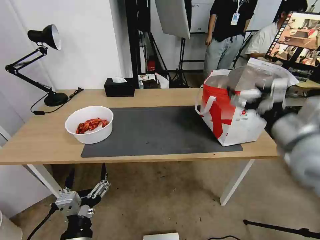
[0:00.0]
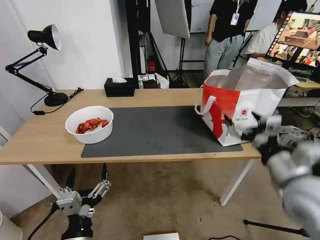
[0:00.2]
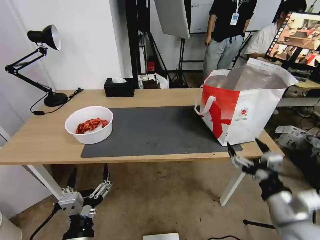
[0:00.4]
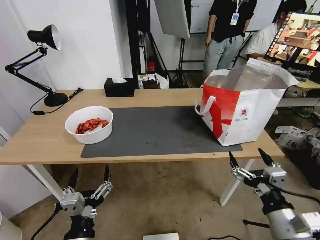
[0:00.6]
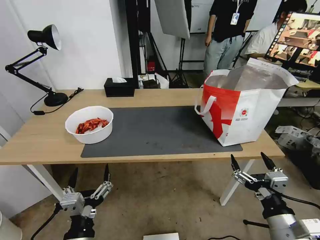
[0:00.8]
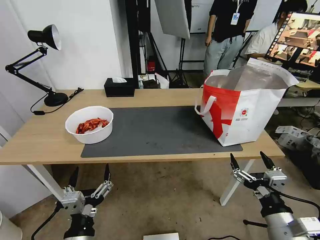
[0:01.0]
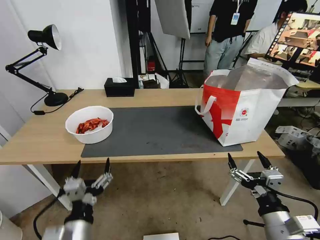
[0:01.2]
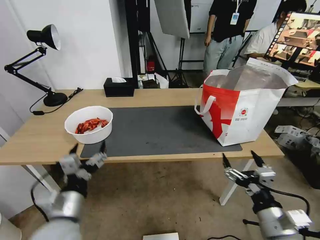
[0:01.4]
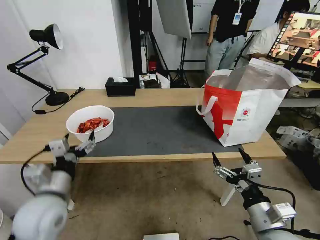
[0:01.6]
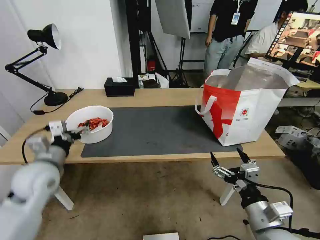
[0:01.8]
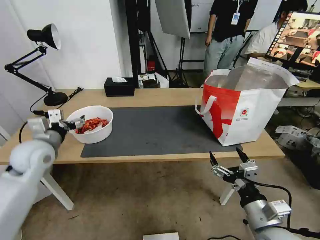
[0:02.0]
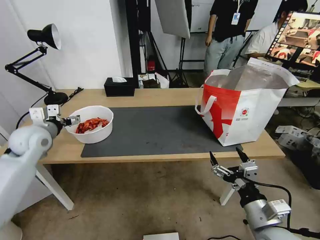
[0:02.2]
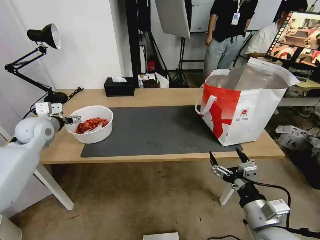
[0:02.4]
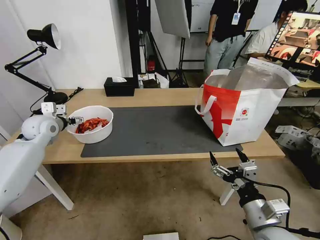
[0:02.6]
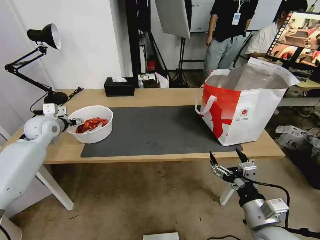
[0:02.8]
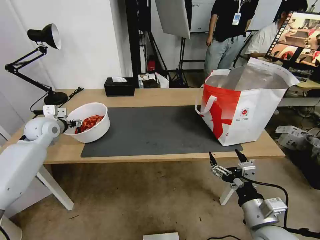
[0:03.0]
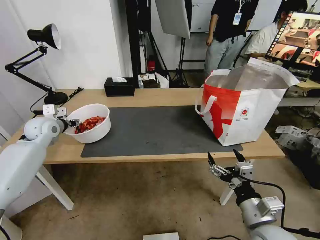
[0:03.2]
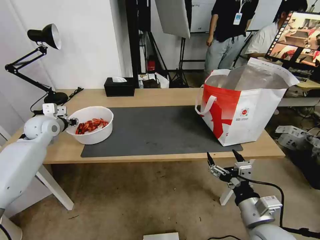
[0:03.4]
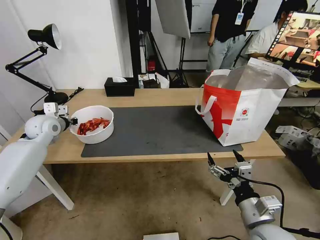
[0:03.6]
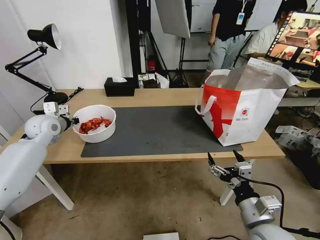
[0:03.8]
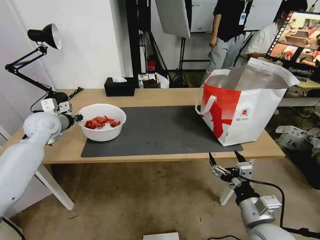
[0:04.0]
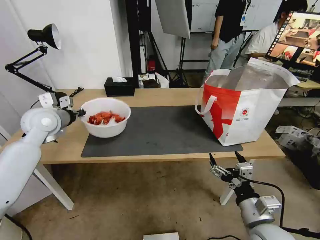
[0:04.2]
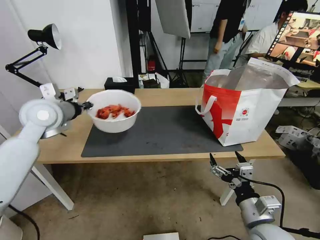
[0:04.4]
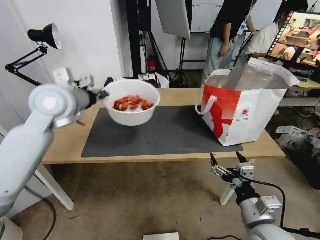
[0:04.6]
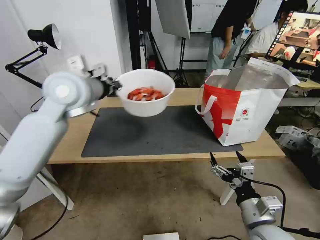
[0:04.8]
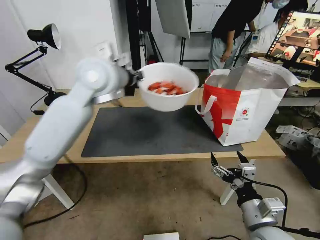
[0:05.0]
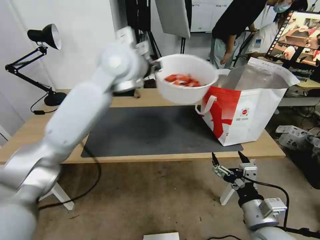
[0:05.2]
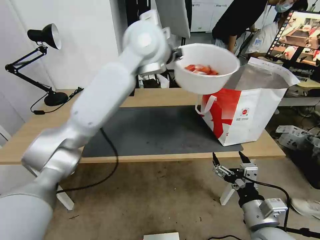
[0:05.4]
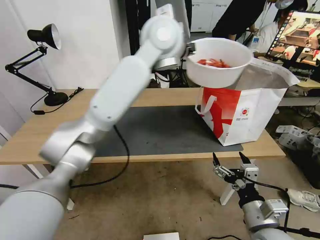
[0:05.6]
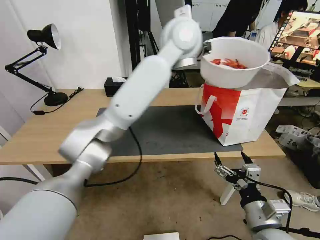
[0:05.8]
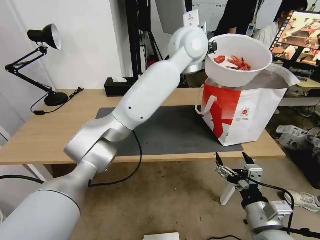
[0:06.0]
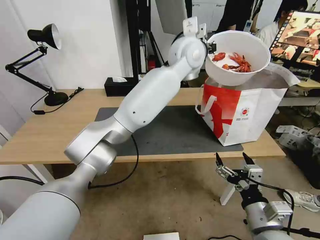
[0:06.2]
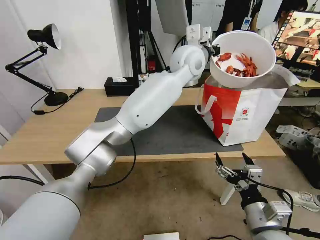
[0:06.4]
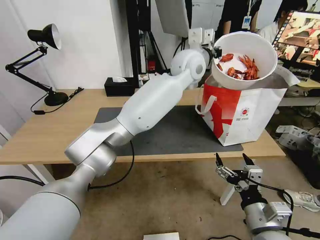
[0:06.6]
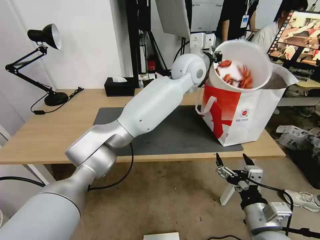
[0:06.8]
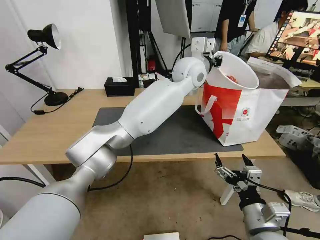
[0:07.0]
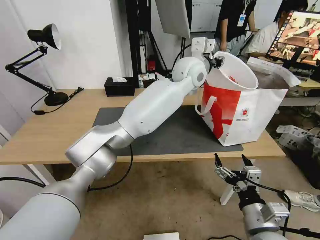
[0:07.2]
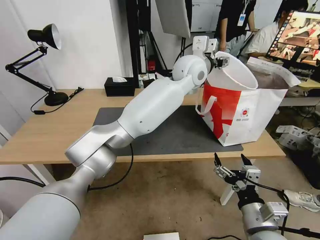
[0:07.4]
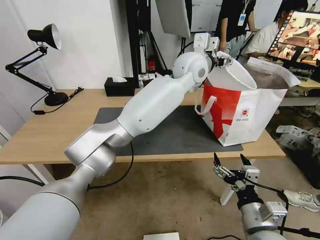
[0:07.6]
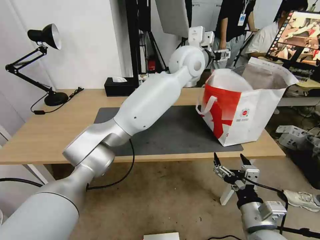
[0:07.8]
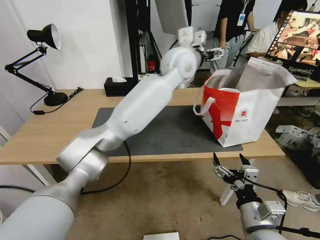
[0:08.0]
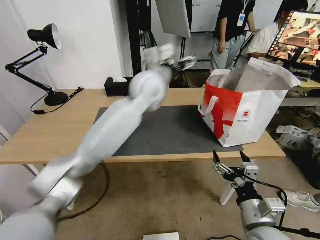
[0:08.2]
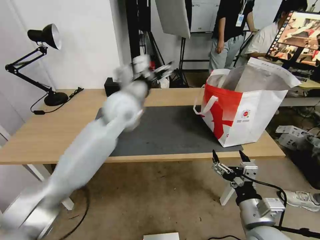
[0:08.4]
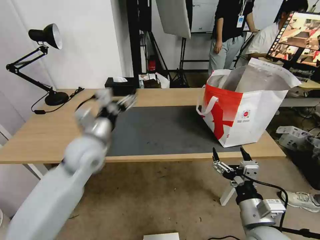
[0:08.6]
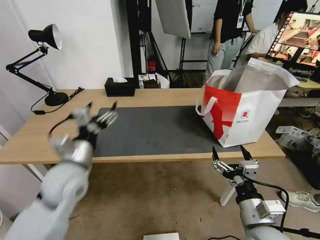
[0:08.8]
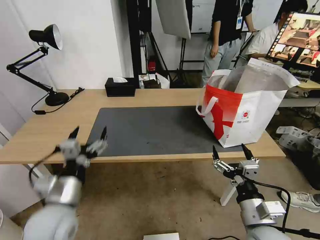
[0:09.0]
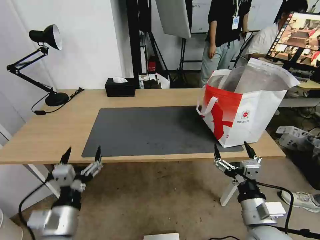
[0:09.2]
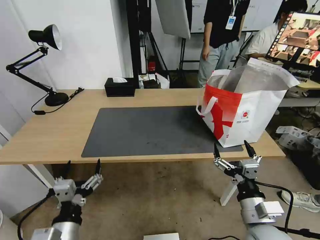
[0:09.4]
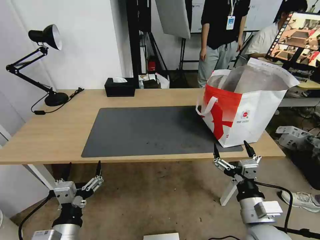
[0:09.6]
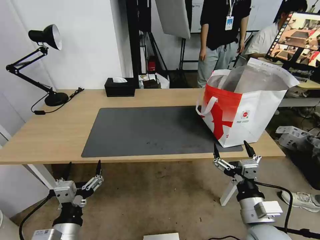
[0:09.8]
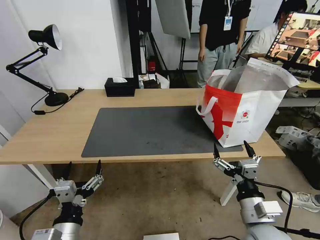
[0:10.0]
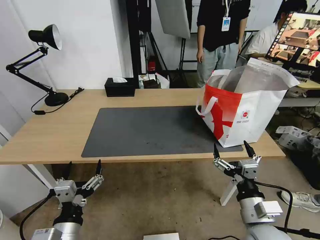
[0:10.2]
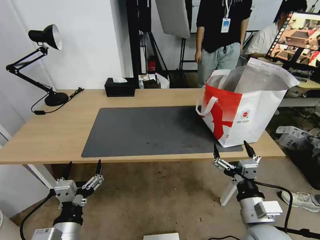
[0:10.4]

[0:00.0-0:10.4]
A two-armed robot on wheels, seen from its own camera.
Task of the whole recording: Pick up the trash from the table and place it into the takeout bag.
0:00.0 to 0:01.4: The left gripper travels forward by some 10 cm. Meanwhile the right gripper heads downward and backward, covering approximately 20 cm.
0:01.4 to 0:03.0: The left gripper is displaced forward and to the left by about 35 cm.
0:03.0 to 0:04.4: The left gripper heads upward, to the right and backward, covering roughly 15 cm, and closes its fingers.
0:04.4 to 0:06.0: The left gripper is displaced to the right by roughly 40 cm.
0:06.0 to 0:07.4: The left gripper goes roughly 5 cm downward, and opens.
0:07.4 to 0:09.0: The left gripper heads backward, to the left and downward, covering approximately 50 cm.
0:09.0 to 0:10.4: The left gripper moves backward, some 10 cm.

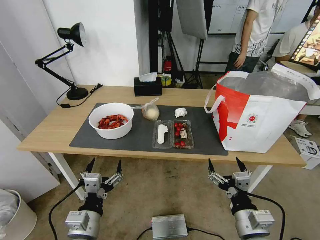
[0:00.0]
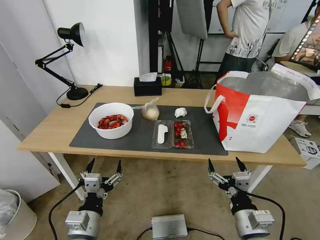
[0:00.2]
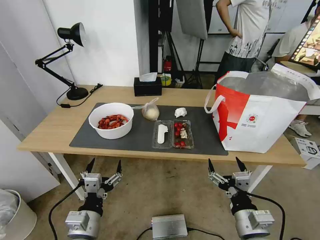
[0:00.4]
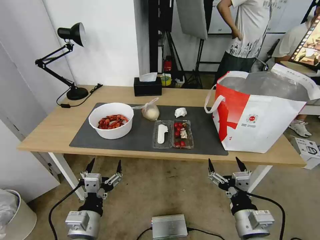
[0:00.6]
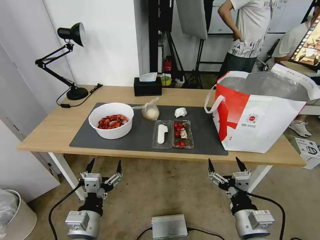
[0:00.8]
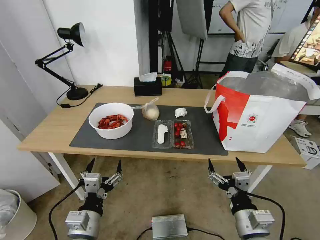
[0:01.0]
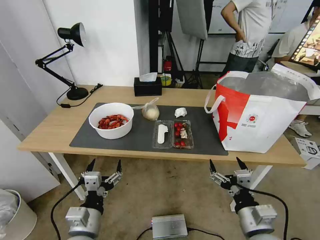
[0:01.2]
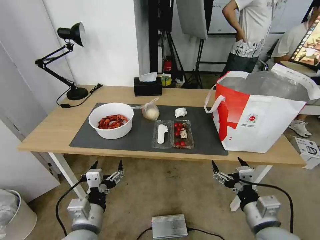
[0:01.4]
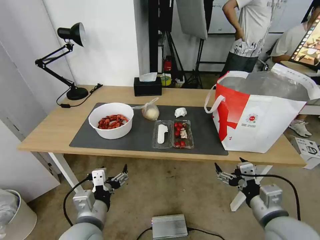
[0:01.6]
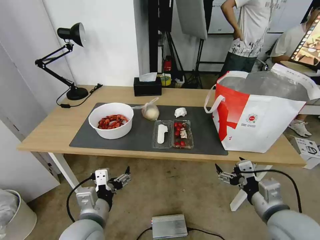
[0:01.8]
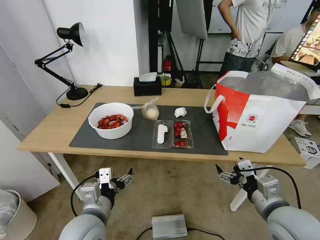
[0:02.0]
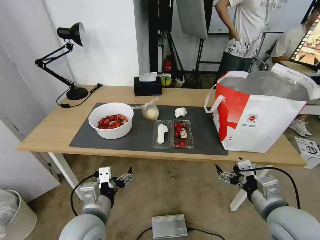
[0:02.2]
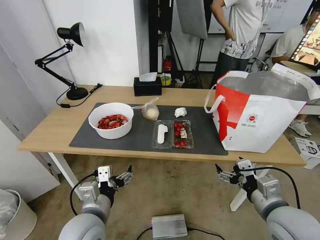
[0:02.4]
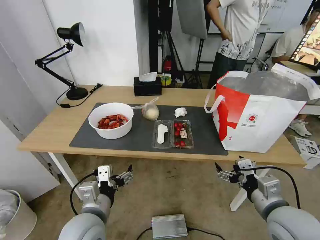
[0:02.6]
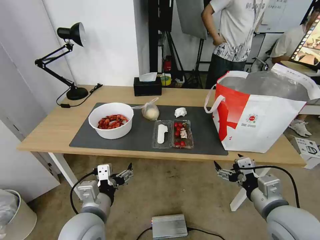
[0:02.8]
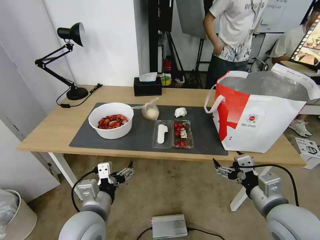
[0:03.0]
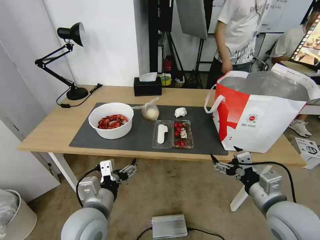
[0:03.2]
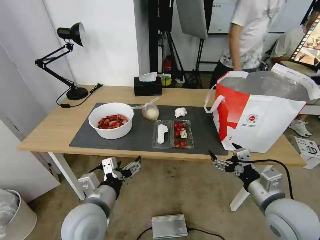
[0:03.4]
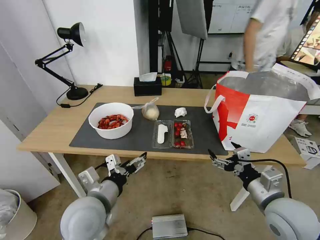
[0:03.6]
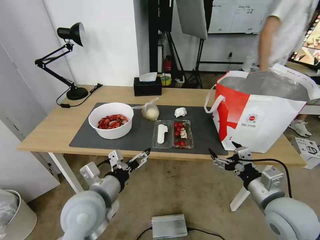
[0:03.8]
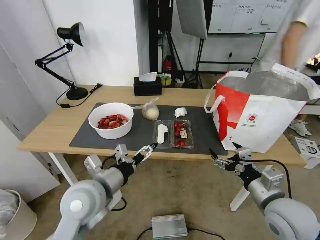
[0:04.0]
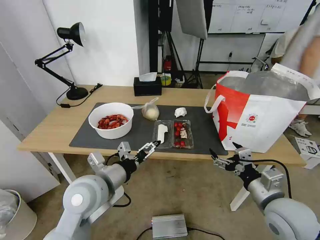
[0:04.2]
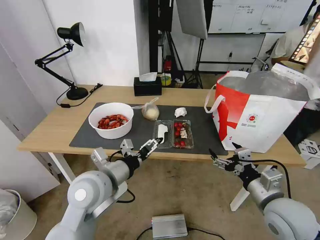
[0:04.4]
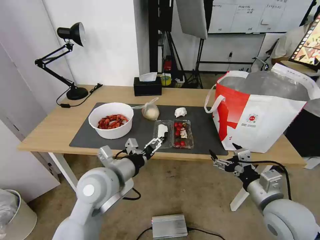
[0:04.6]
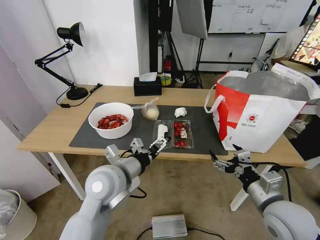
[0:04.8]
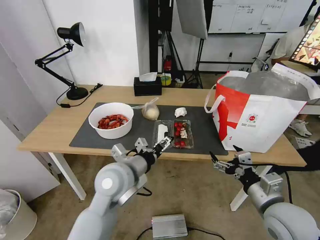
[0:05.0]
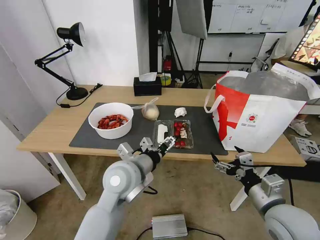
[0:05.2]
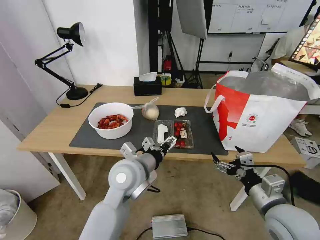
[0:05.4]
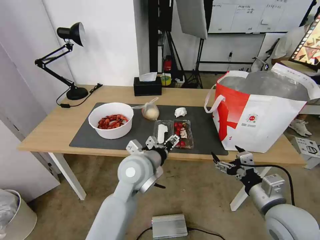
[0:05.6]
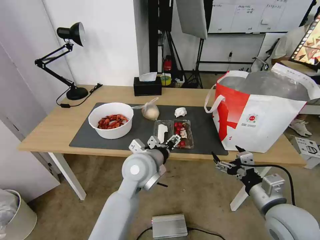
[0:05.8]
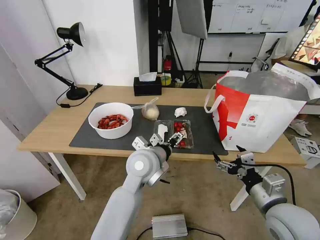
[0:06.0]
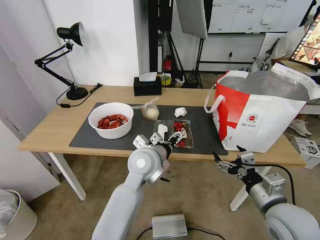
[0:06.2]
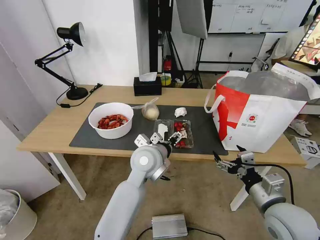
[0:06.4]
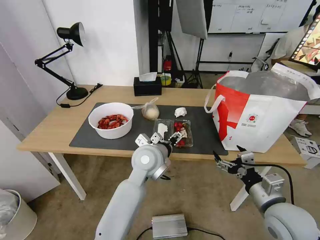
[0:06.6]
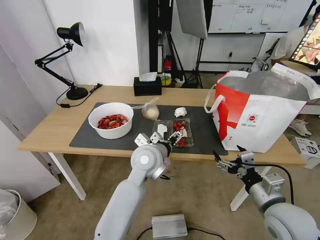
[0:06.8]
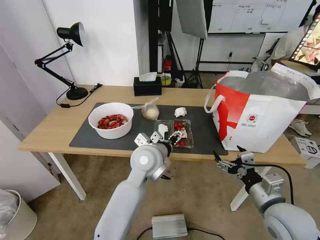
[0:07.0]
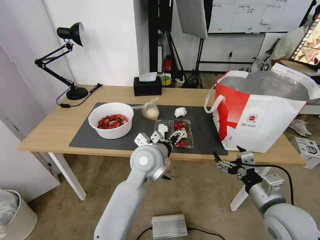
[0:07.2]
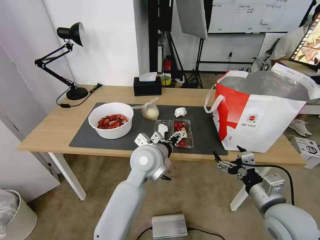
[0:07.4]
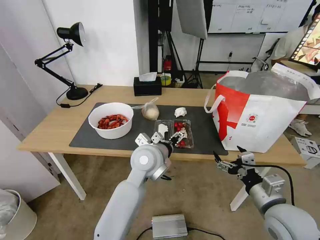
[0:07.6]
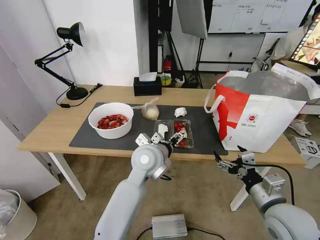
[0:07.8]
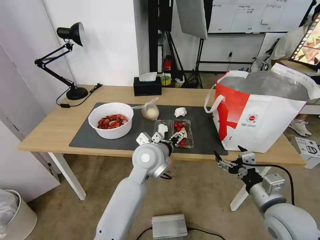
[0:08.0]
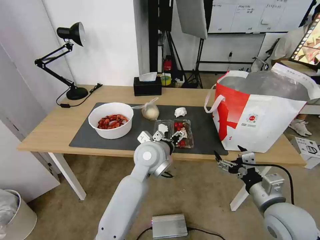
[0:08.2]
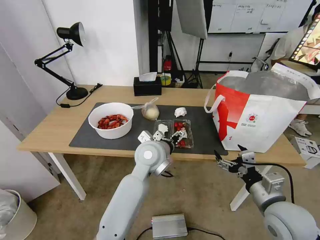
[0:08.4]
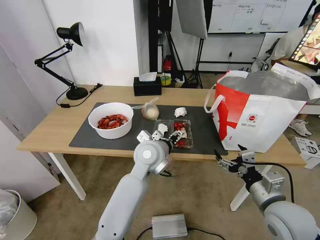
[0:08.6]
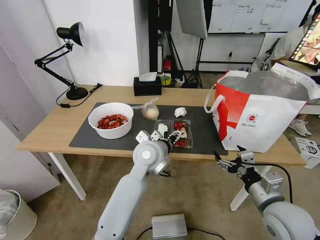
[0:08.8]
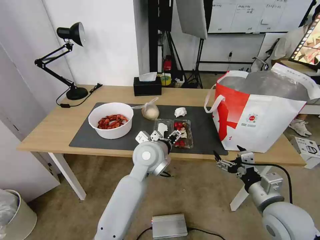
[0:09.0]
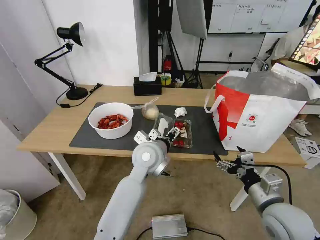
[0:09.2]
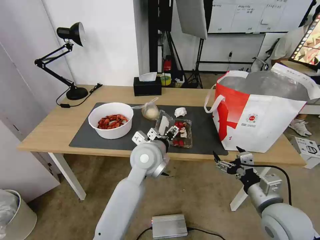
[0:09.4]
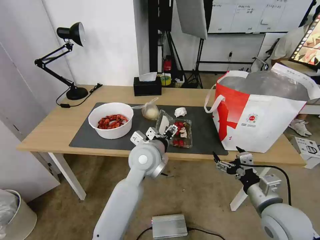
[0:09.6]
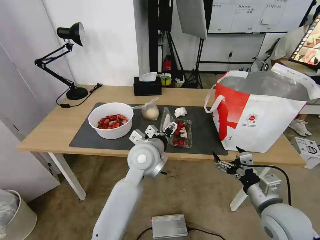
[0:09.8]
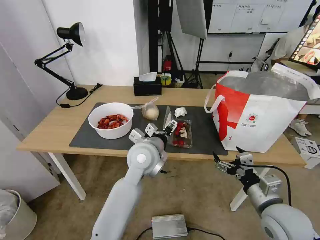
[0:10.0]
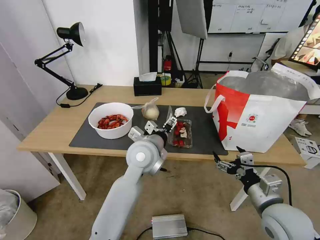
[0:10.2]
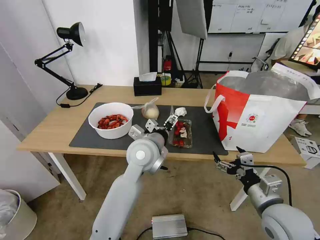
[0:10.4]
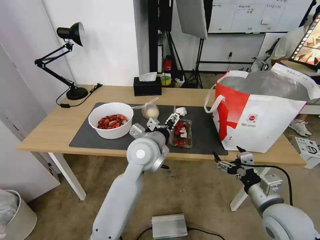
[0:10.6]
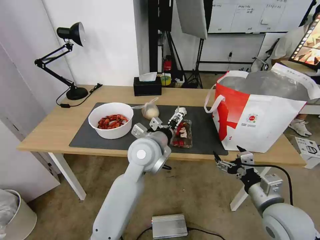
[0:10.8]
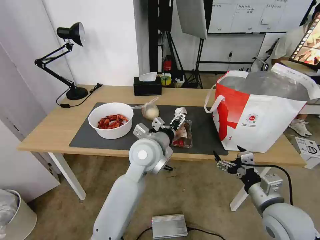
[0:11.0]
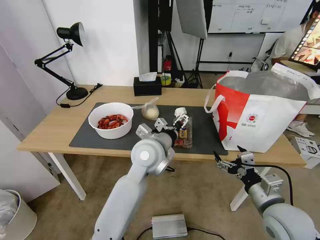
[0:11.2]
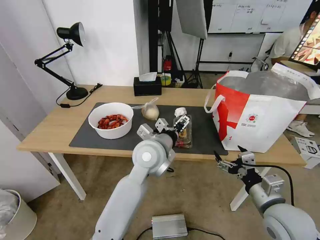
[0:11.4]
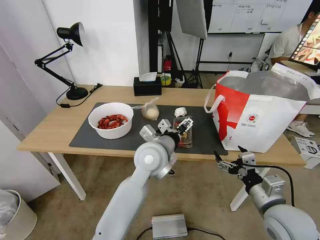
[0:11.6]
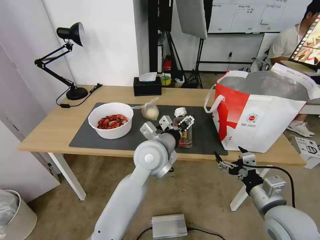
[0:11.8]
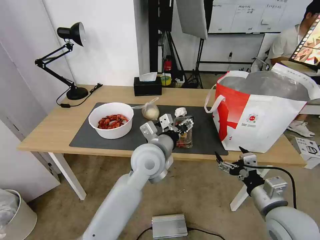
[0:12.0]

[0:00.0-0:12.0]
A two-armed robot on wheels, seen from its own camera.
Task of the whole recording: Pick up the trash from the table and place it into the takeout bag.
0:01.6 to 0:03.0: The grippers move only a little.
0:03.0 to 0:04.4: The left gripper is displaced forward and upward by approximately 10 cm.
0:04.4 to 0:06.0: The left gripper travels to the right and forward by roughly 15 cm.
0:06.0 to 0:10.4: The grippers move only a little.
0:10.4 to 0:12.0: The left gripper closes its fingers.
